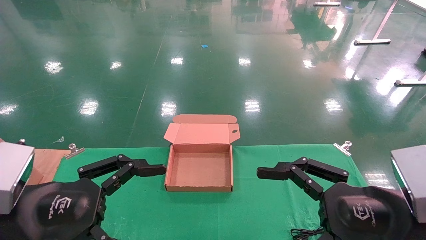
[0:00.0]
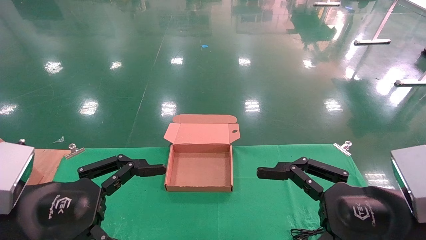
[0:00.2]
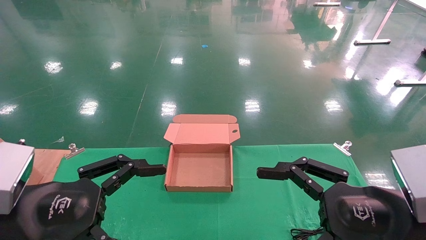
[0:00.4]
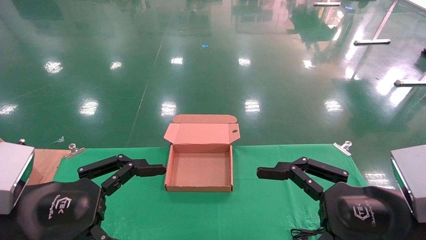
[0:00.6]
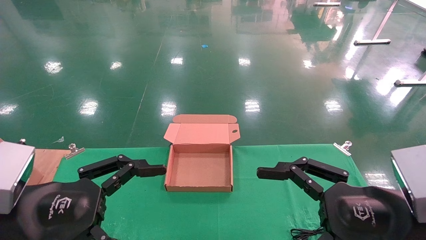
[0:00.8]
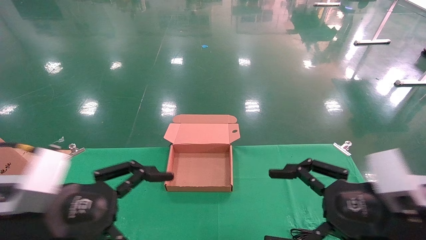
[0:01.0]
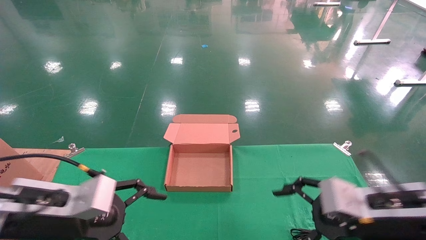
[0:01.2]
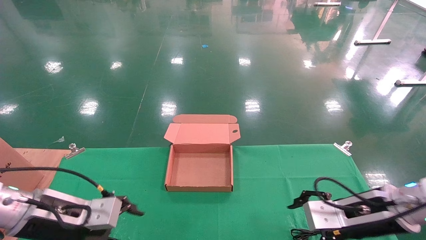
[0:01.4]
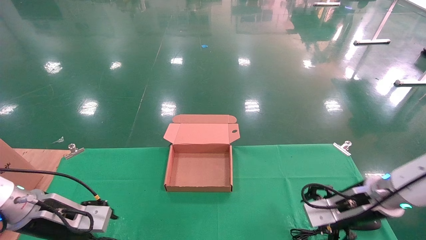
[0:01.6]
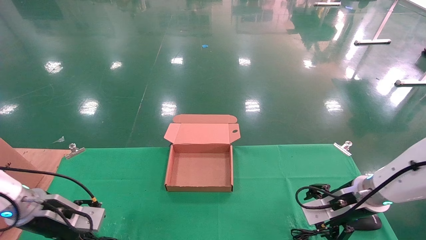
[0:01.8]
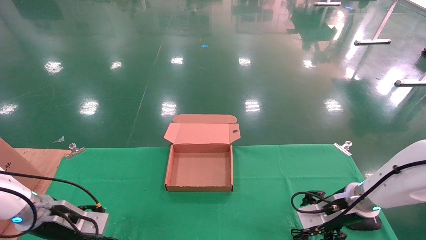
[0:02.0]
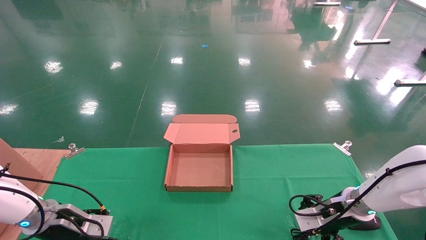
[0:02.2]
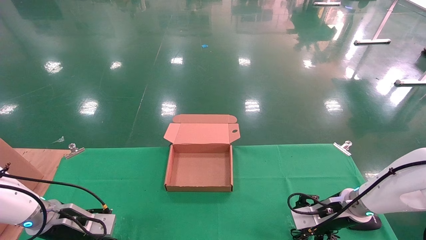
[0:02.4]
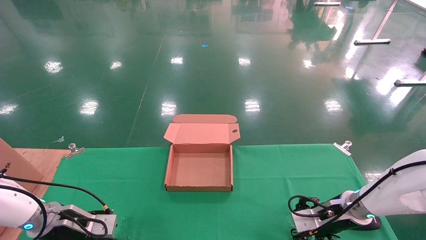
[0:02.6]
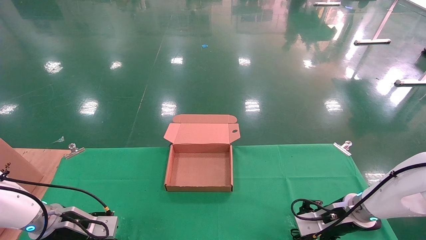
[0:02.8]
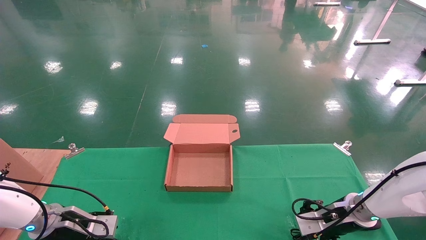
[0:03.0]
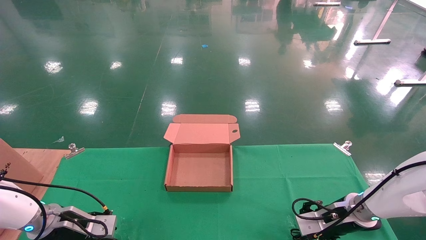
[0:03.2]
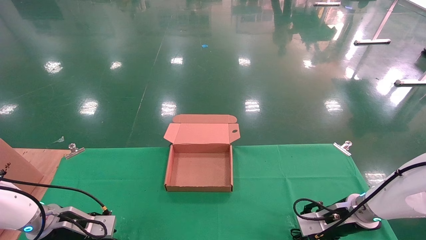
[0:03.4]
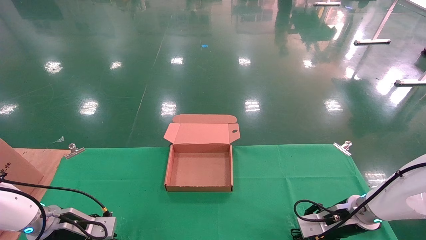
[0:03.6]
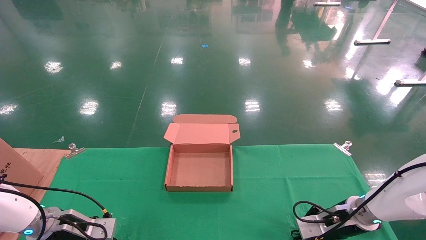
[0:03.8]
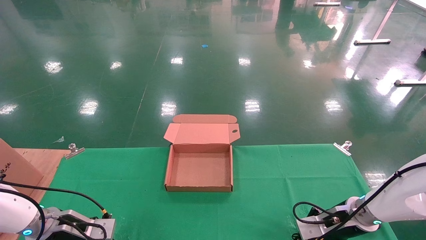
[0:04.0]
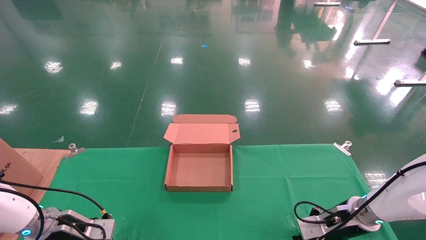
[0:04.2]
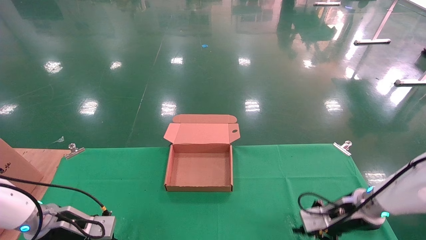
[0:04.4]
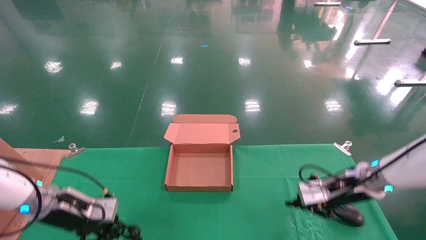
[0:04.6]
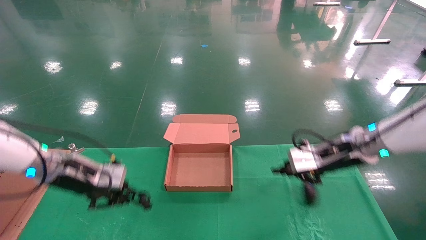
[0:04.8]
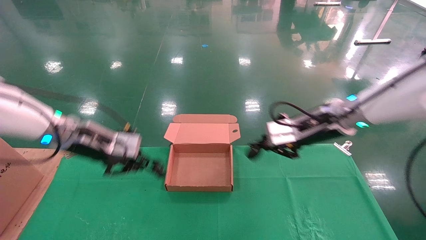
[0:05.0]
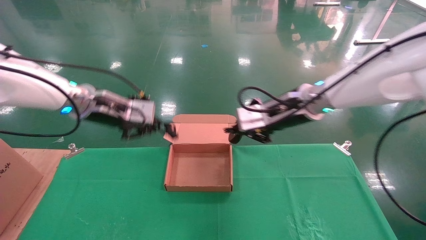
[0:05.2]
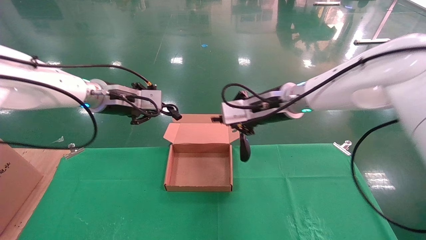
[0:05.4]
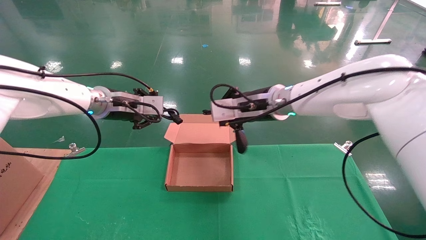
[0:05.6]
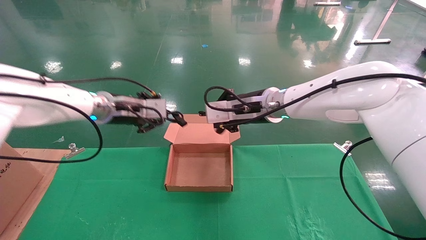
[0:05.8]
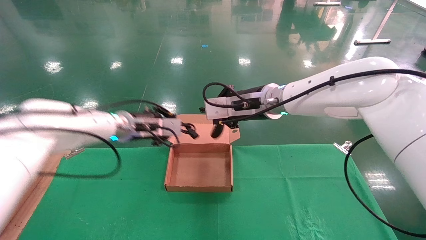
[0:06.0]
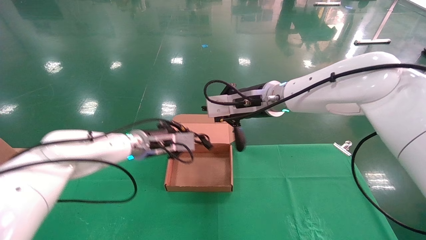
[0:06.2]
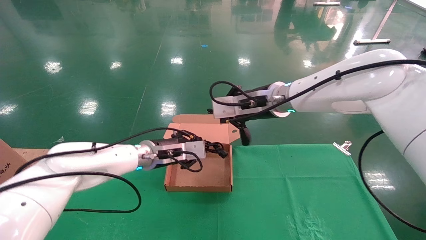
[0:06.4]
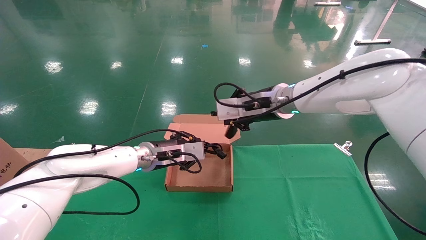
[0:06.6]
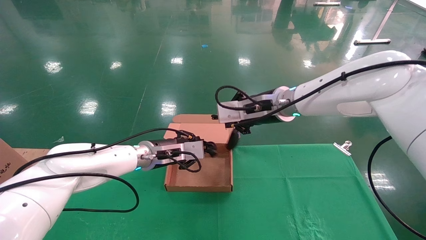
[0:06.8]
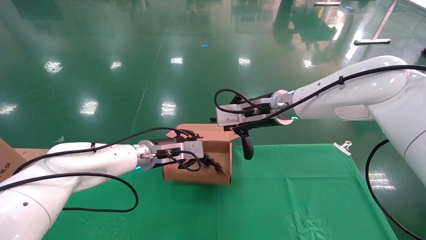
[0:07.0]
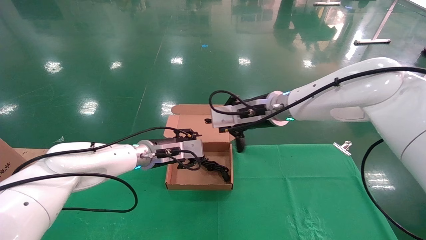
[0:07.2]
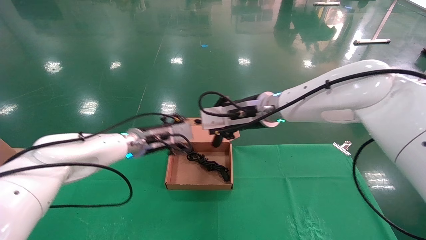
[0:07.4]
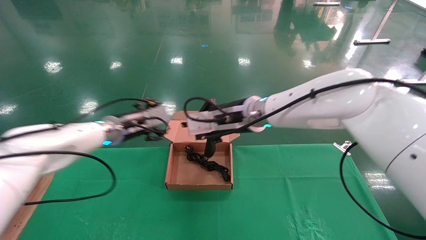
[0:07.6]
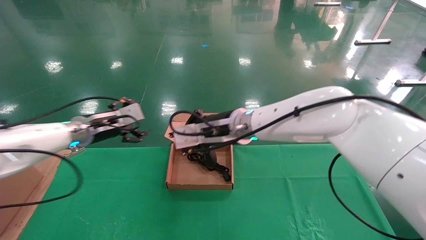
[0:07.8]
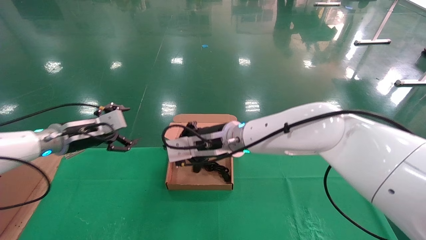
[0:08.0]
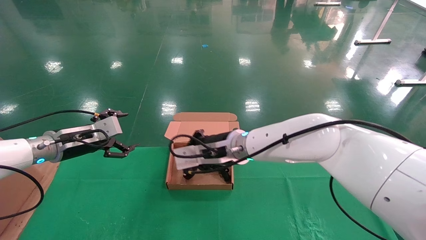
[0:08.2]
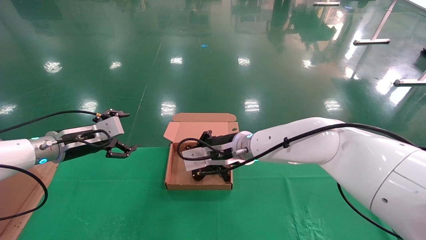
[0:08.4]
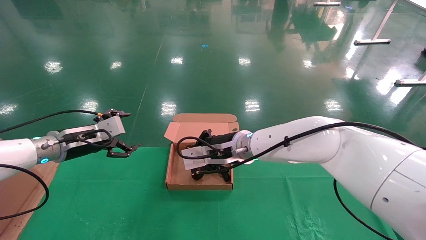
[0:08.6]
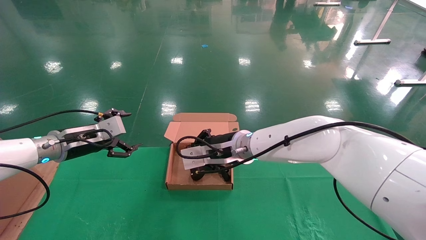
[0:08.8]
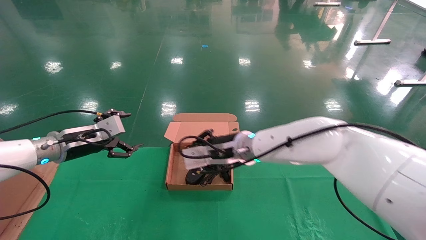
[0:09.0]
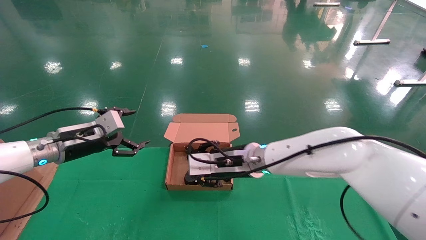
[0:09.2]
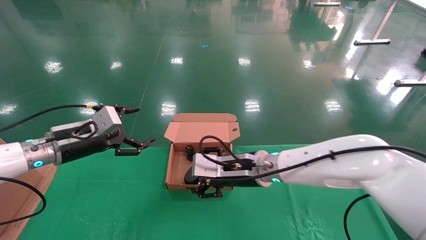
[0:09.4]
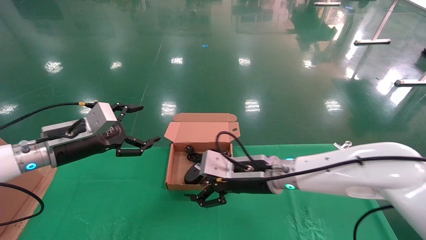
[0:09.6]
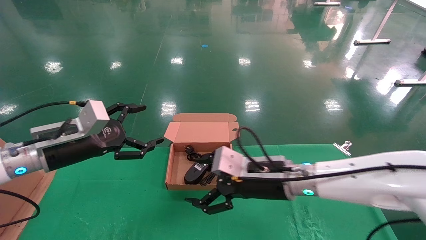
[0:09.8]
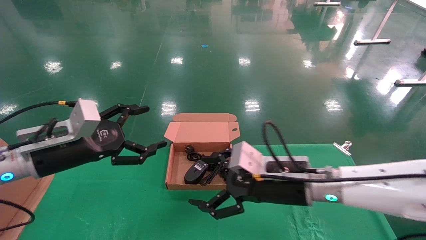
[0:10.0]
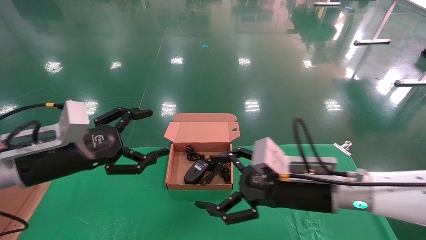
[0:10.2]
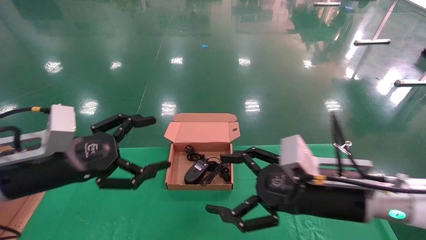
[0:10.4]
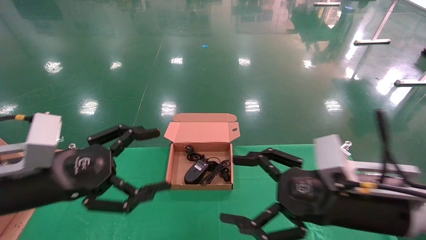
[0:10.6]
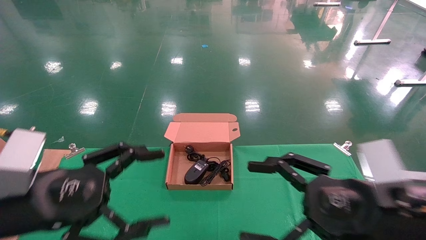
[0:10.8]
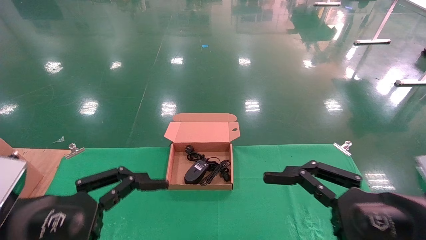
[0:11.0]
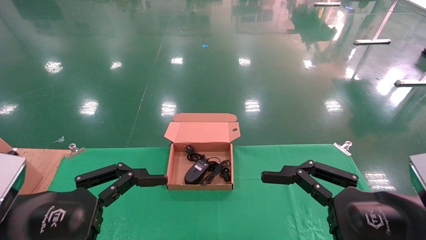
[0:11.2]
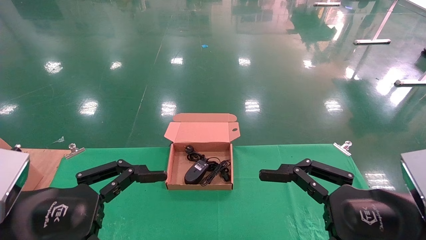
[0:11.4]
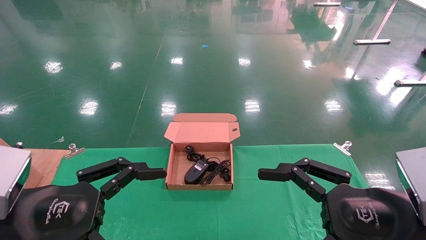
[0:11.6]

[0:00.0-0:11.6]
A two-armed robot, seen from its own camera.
Step, 0:01.6 to 0:05.2: Grab and lift both the mouse and power cord from the accessory packaging area at the same time.
Step, 0:05.4 to 0:09.8: Place the mouse and power cord into the box.
0:00.0 to 0:01.4: Both grippers move forward and downward, about 15 cm.
0:01.4 to 0:02.8: The right gripper is displaced forward and downward by approximately 15 cm. The left gripper heads downward, forward and to the left, covering some 15 cm.
0:02.8 to 0:04.4: The left gripper closes its fingers; the right gripper closes its fingers.
0:04.4 to 0:05.8: The right gripper shifts roughly 30 cm upward and to the left, while the left gripper heads upward, to the right and forward, covering approximately 25 cm.
0:05.8 to 0:07.2: The left gripper goes roughly 10 cm downward and to the right.
0:07.2 to 0:08.8: The left gripper goes some 20 cm to the left, and opens. Meanwhile the right gripper is displaced downward and to the left by roughly 10 cm.
0:08.8 to 0:10.2: The right gripper travels to the right and backward by roughly 20 cm, and opens its fingers. Meanwhile the left gripper moves backward, about 15 cm.
0:10.2 to 0:11.6: The right gripper moves backward and to the right, approximately 15 cm, while the left gripper goes approximately 10 cm backward.
